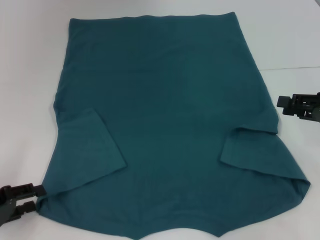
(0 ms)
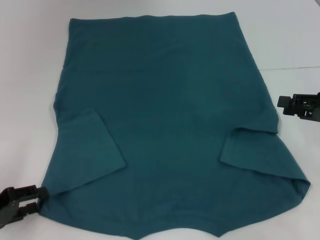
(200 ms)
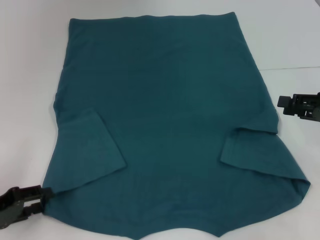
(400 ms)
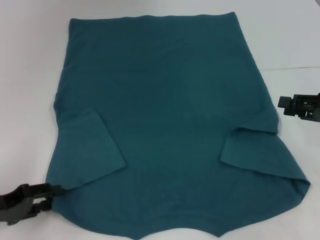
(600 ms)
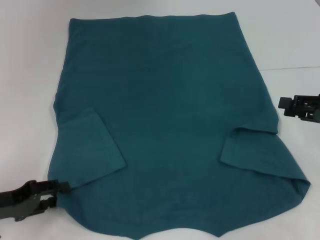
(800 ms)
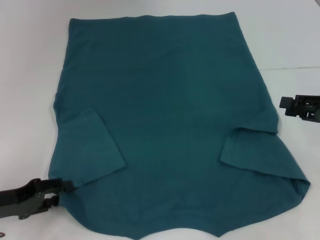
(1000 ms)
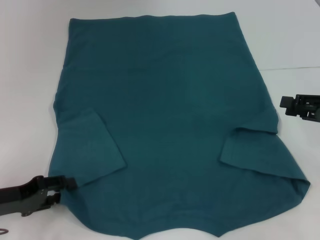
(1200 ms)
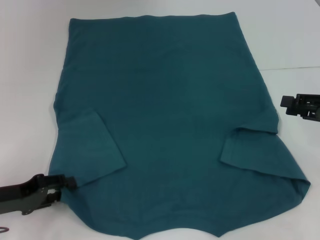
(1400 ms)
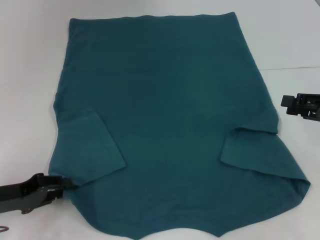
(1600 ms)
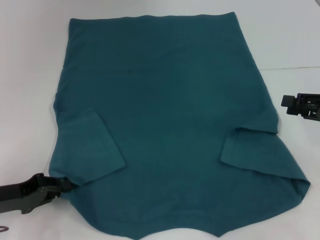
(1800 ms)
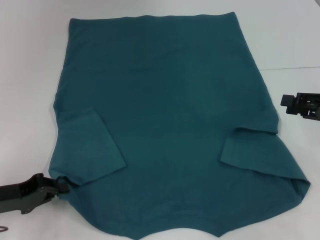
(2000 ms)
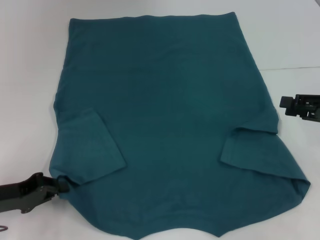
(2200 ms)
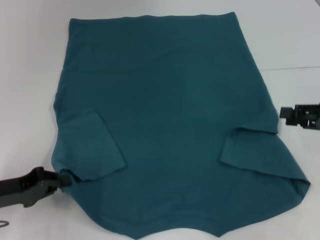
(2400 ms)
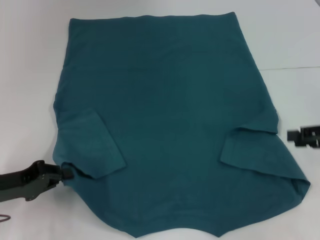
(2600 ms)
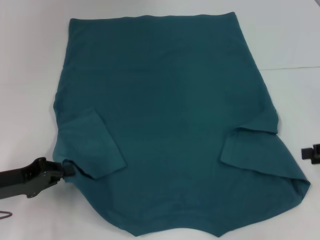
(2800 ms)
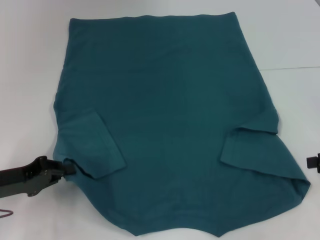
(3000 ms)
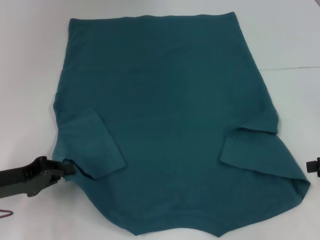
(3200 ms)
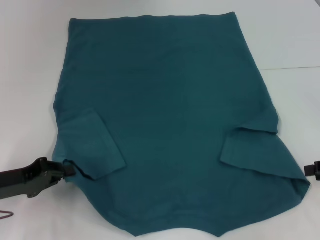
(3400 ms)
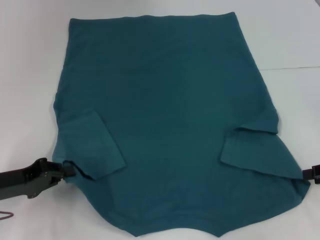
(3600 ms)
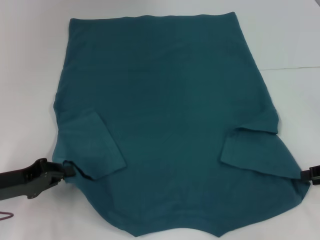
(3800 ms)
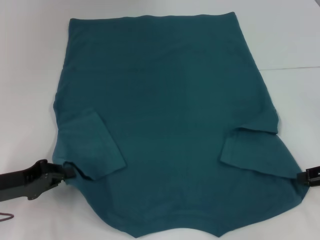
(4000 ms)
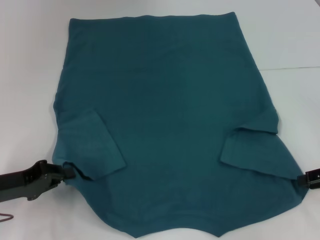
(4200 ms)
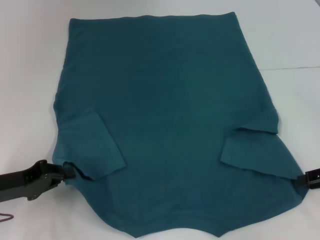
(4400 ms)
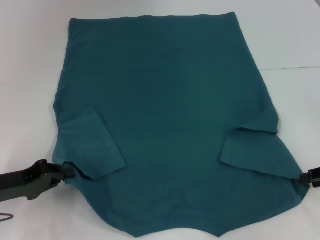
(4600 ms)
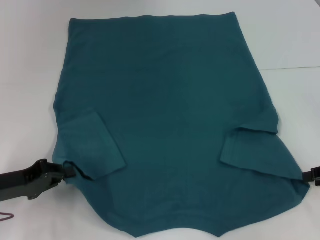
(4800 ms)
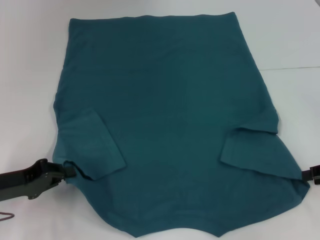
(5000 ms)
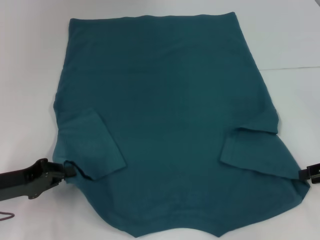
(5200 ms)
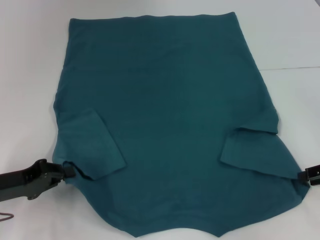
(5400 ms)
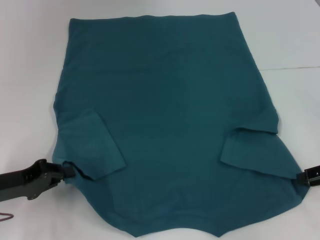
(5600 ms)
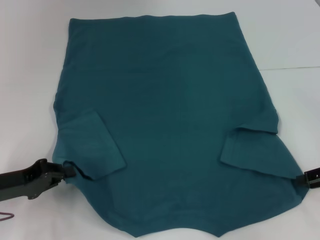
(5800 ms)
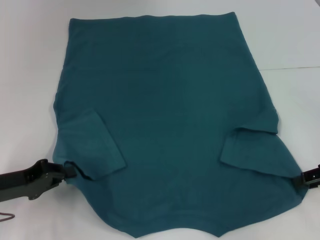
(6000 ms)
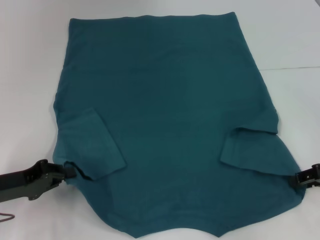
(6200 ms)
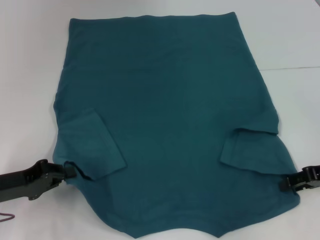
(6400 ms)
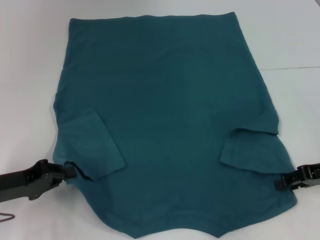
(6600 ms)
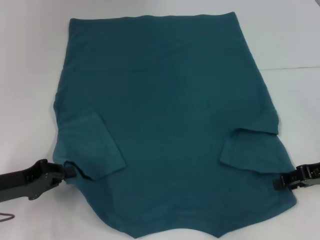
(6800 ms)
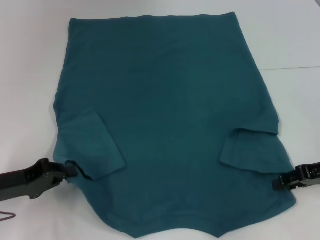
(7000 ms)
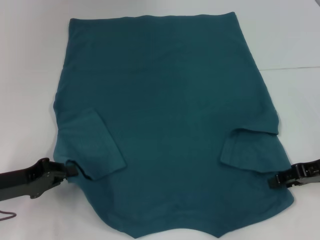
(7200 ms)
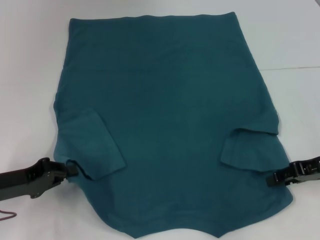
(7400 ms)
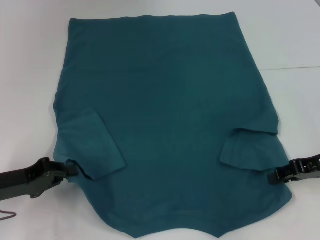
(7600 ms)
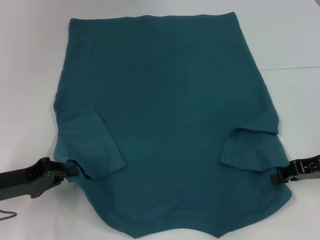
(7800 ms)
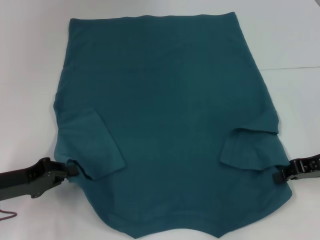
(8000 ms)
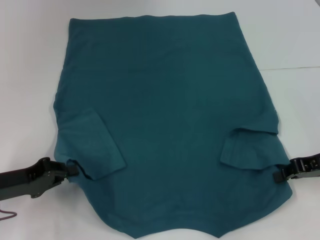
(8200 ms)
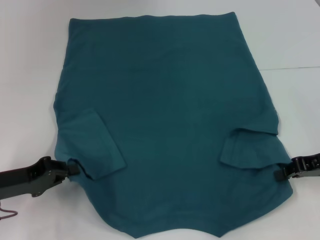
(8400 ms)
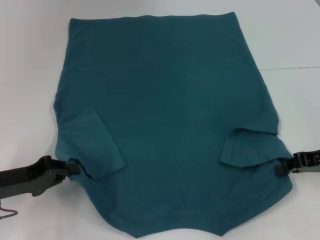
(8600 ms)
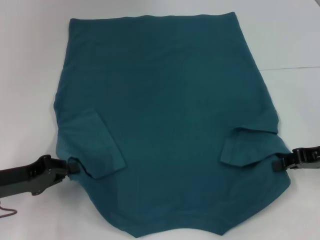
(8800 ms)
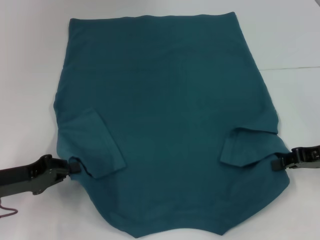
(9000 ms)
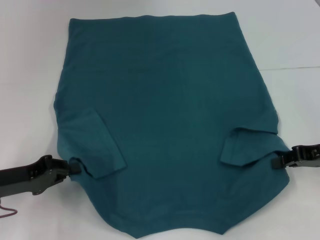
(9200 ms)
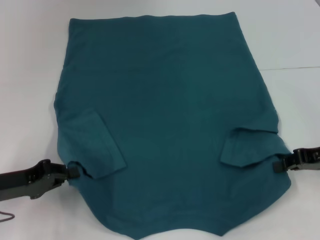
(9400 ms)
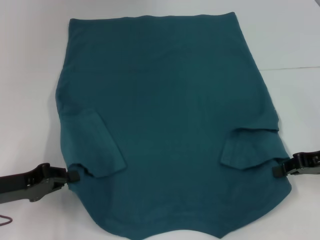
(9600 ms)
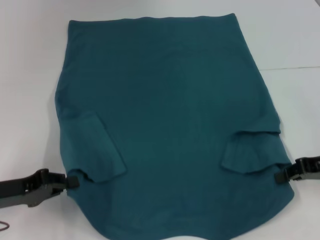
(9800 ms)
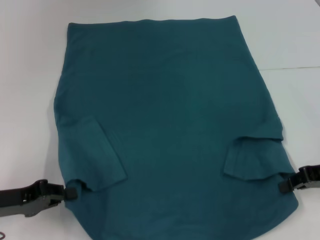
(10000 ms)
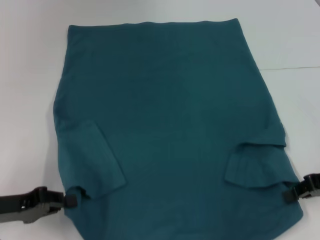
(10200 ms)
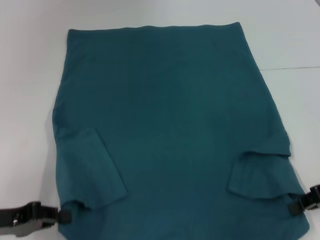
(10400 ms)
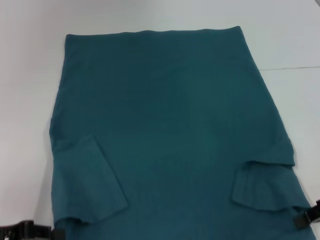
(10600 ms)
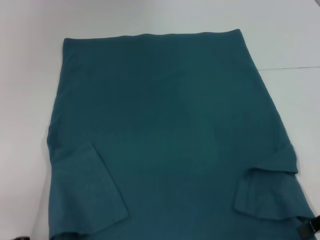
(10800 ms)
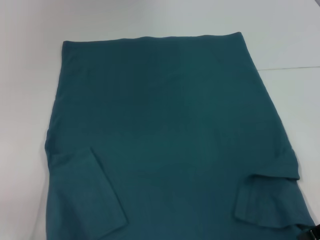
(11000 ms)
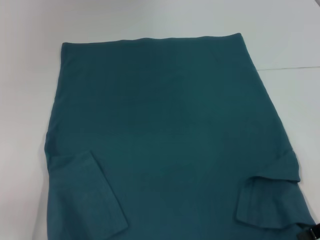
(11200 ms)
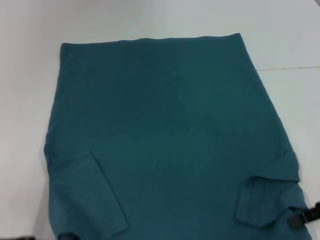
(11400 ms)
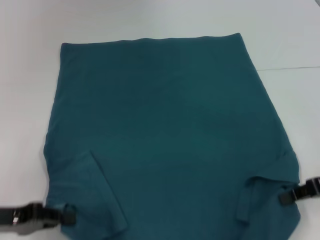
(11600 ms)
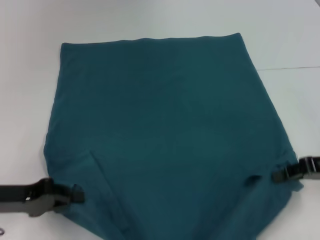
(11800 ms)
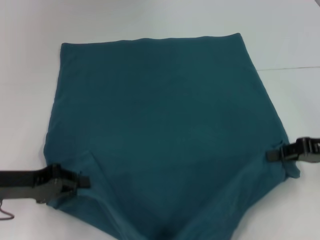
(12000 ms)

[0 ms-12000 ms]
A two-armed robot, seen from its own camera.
Step, 2000 ms to 8200 ms: Grab the bottom right corner with your right hand.
0 ms to 1600 ms: The grippers stay close to where they were, moving slightly.
1600 ms to 3000 ms: The left gripper closes up.
3000 ms to 4400 ms: There are only small adjustments of the grippers.
4400 ms to 6000 ms: Neither gripper changes place.
6000 ms to 7600 ms: The grippers move only a little.
7600 ms to 9000 ms: The right gripper closes.
10400 ms to 12000 ms: The left gripper ends up roughly 5 cm from where it was.

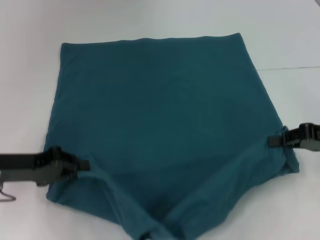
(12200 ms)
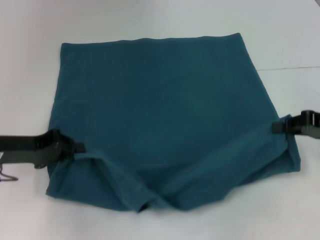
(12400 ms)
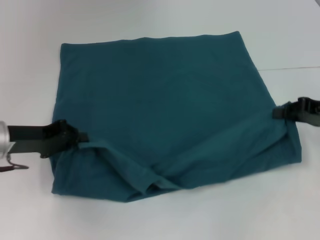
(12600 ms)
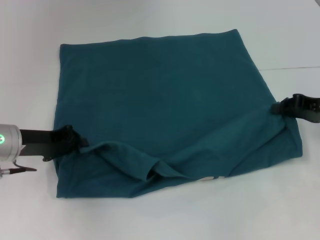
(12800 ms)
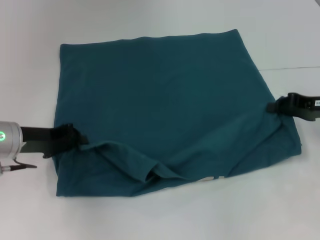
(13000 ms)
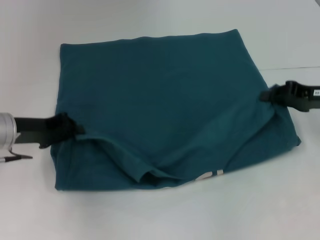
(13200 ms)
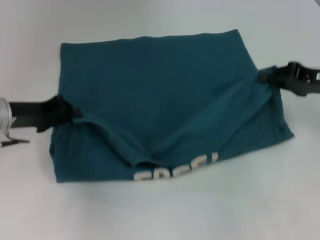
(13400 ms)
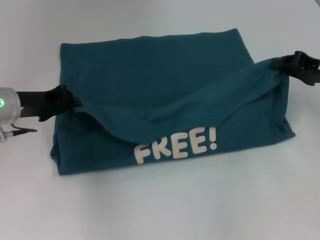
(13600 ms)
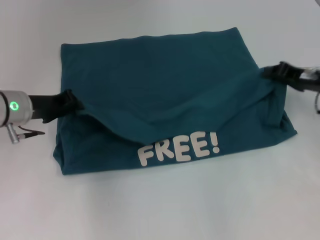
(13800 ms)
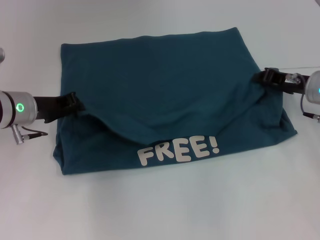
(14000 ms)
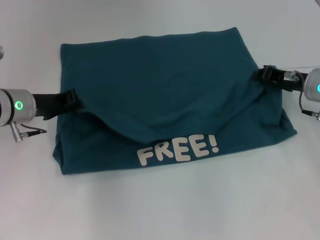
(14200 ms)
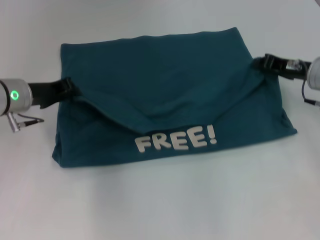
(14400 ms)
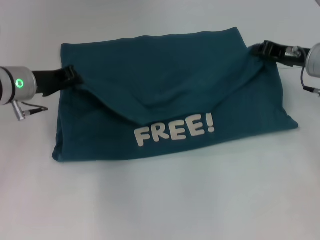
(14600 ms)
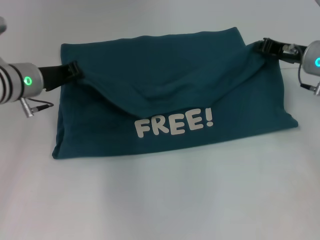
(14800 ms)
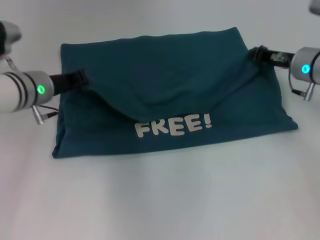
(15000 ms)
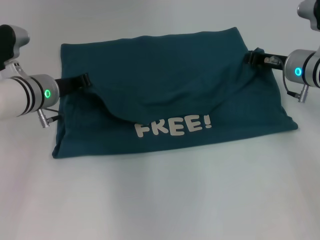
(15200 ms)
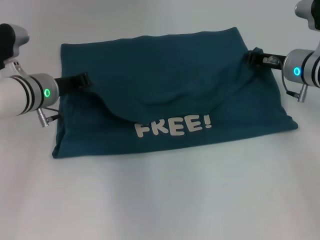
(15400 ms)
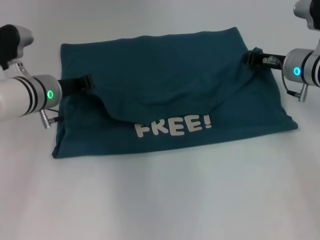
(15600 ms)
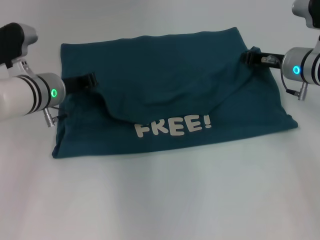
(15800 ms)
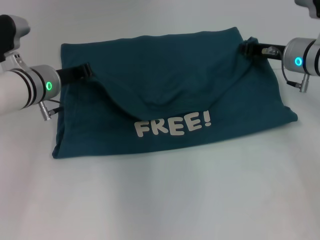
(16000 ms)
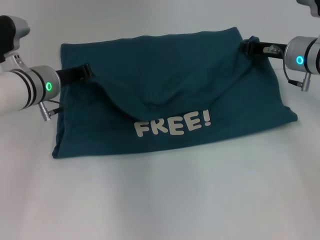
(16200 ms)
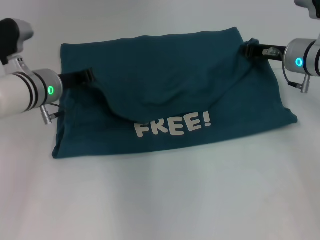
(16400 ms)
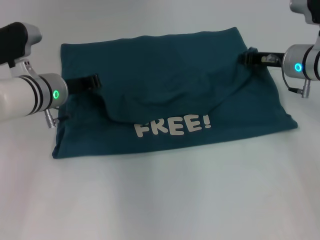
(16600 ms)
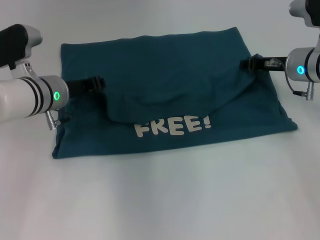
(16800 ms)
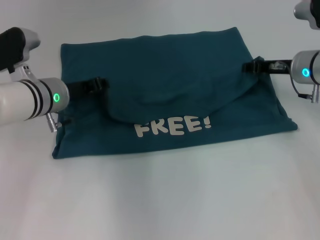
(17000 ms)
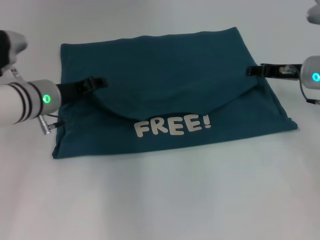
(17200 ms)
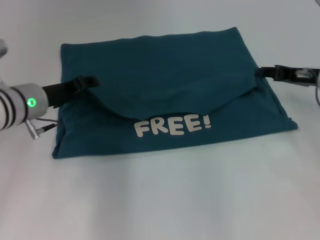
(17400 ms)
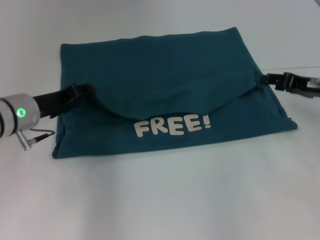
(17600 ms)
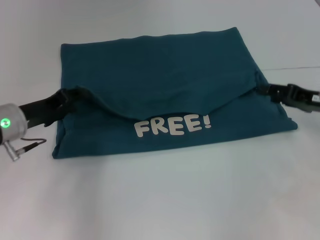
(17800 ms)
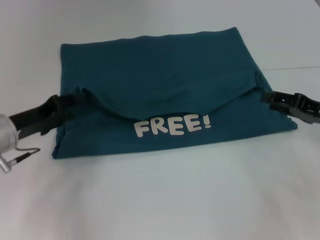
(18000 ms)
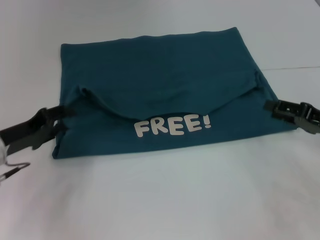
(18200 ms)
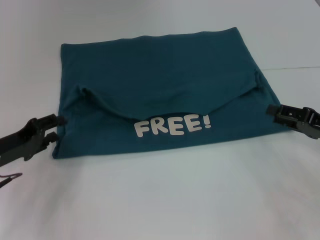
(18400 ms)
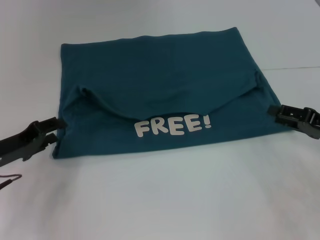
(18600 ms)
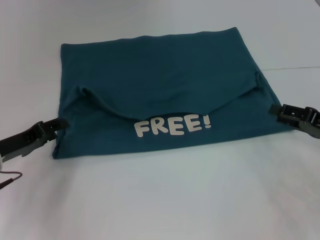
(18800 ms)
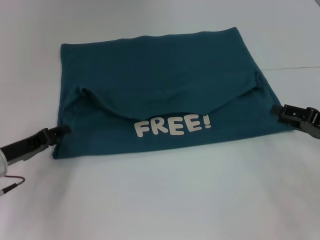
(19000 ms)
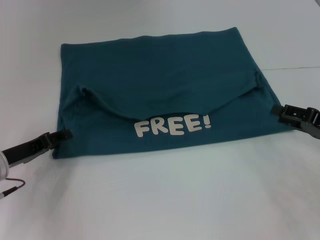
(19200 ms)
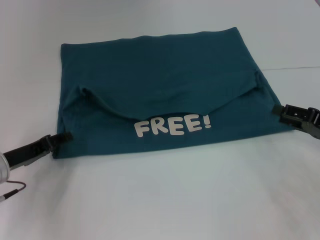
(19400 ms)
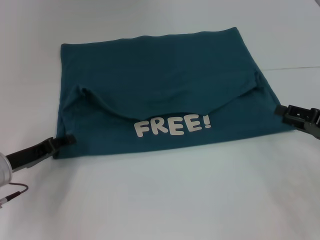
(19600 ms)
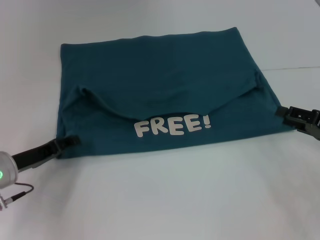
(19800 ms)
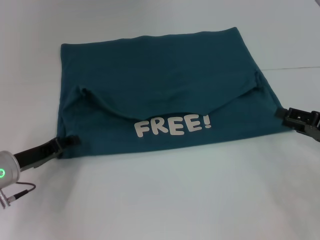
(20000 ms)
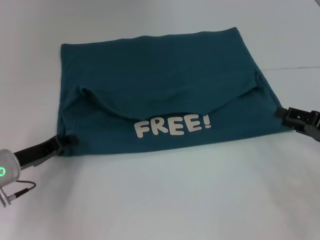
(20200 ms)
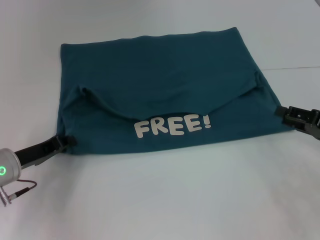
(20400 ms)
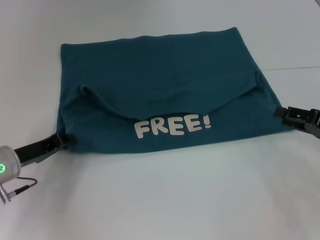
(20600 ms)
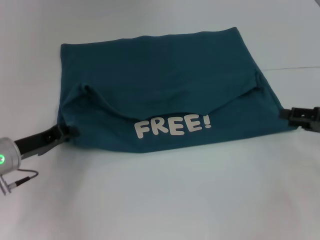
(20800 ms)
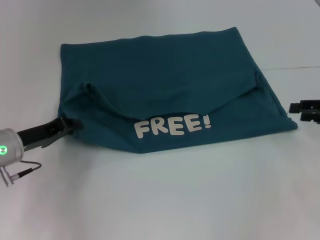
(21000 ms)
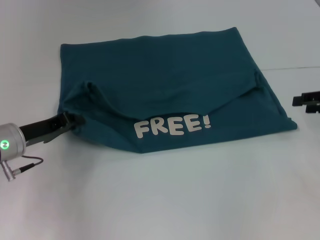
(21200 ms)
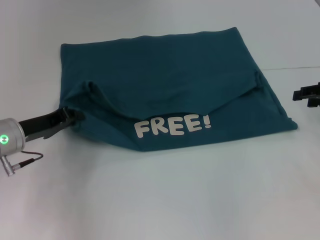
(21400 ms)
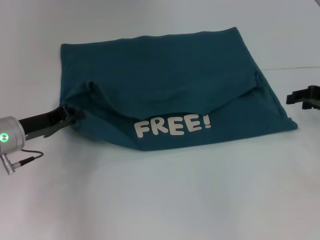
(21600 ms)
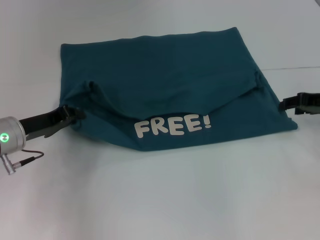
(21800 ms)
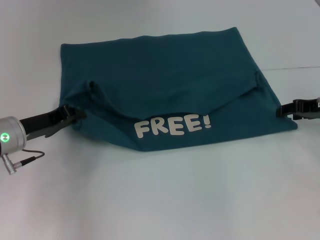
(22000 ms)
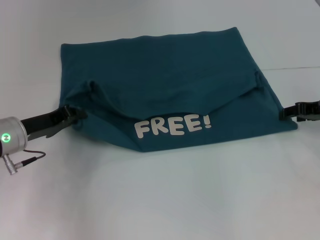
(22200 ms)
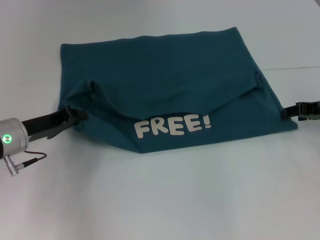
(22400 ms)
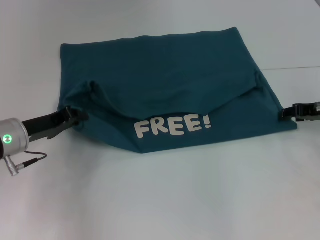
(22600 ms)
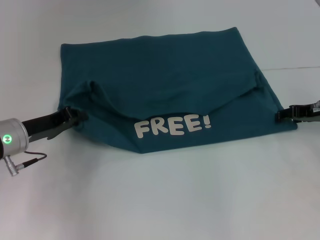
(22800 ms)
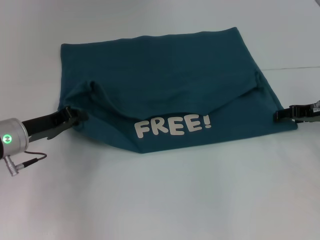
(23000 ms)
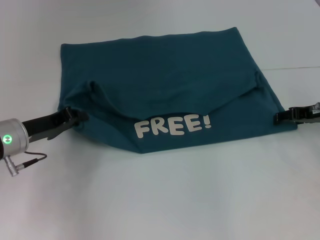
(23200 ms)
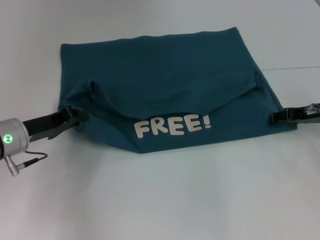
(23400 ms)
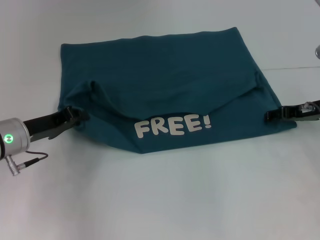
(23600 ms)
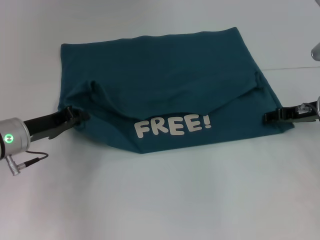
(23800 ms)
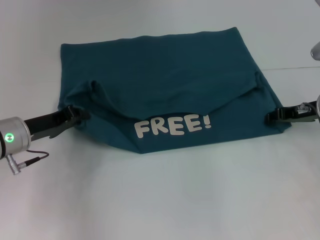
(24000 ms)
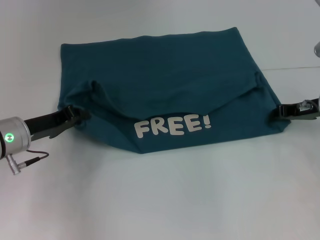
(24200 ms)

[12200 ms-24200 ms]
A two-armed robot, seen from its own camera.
Step, 12200 ms to 17600 ms: Fold the clothes to the left.
Step, 12200 ms to 17600 ms: Fold the clothes to the right.
12200 ms to 13800 ms: Both grippers travel together forward, some 10 cm.
13800 ms to 15200 ms: The right gripper heads to the left, covering some 5 cm, while the left gripper changes place by some 5 cm.
15200 ms to 16600 ms: The grippers stay close to where they were, moving slightly.
16600 ms to 18200 ms: The left gripper heads to the left and backward, covering roughly 15 cm, and opens. The right gripper moves backward and to the right, approximately 15 cm, and opens its fingers.
18200 ms to 19800 ms: The grippers stay close to where they were, moving slightly.
19800 ms to 21200 ms: The right gripper goes roughly 10 cm forward and upward. Meanwhile the left gripper closes.
21200 ms to 22600 ms: The right gripper ends up approximately 5 cm from where it was.
22600 ms to 24200 ms: The grippers move only a little.
